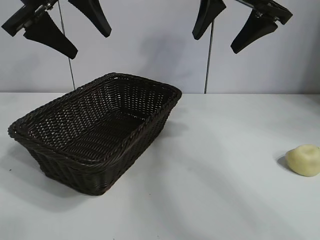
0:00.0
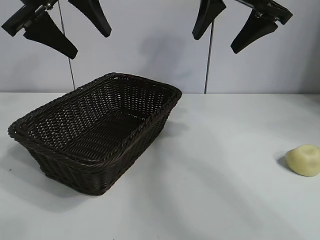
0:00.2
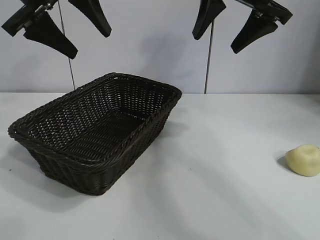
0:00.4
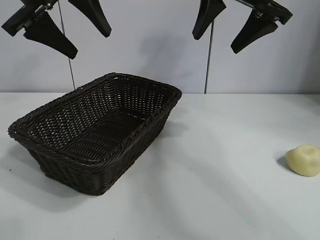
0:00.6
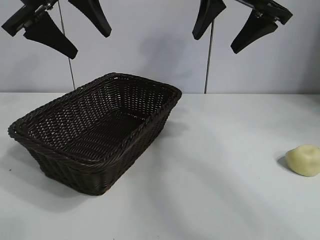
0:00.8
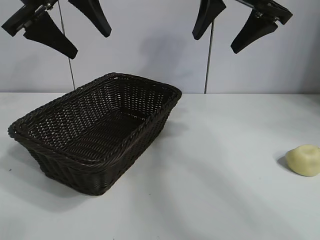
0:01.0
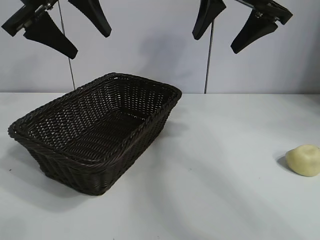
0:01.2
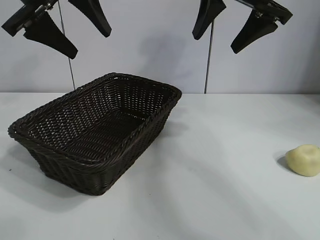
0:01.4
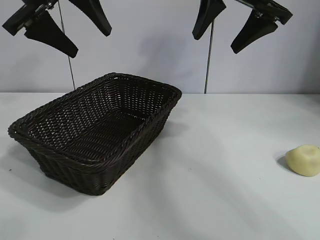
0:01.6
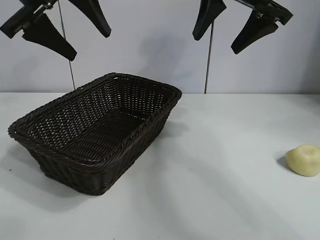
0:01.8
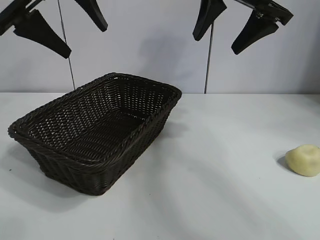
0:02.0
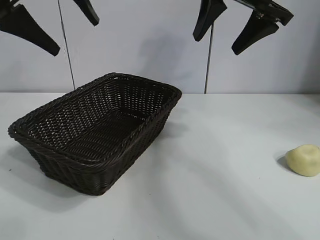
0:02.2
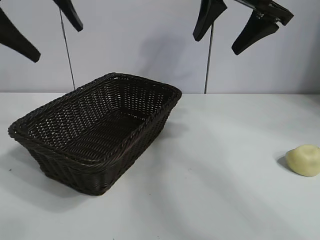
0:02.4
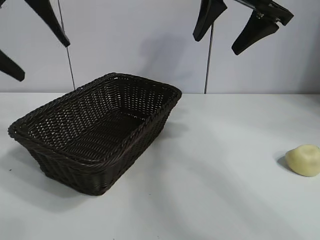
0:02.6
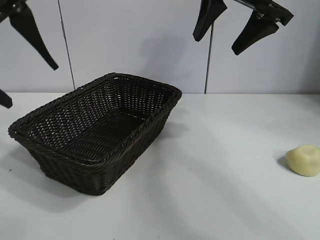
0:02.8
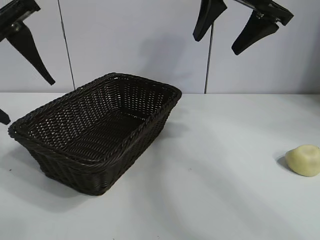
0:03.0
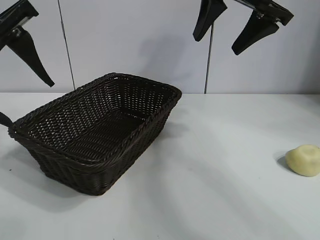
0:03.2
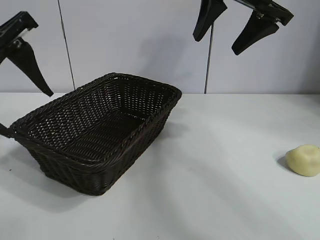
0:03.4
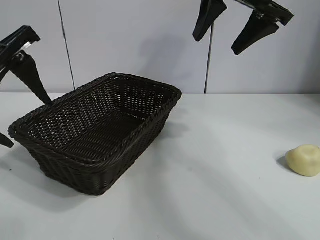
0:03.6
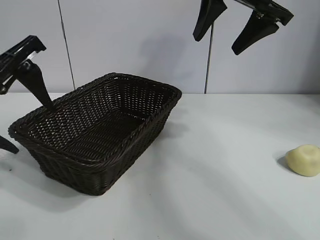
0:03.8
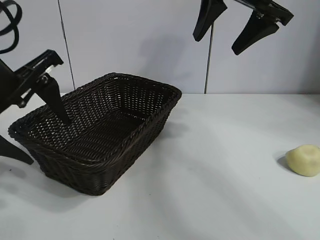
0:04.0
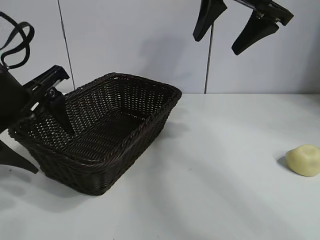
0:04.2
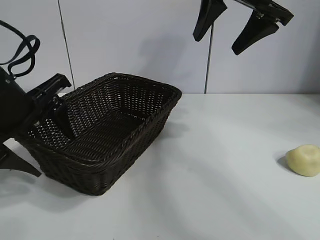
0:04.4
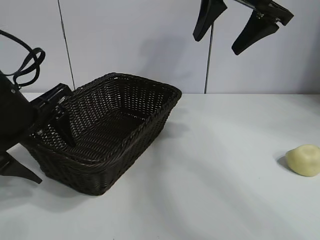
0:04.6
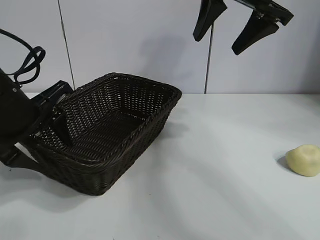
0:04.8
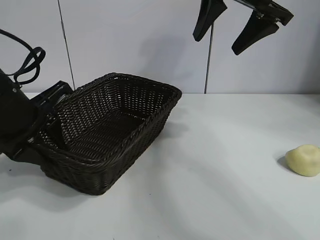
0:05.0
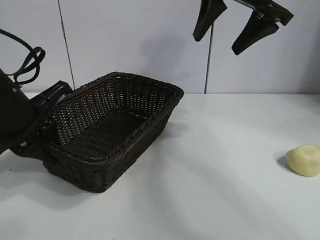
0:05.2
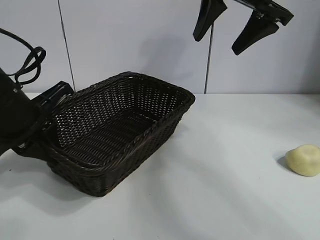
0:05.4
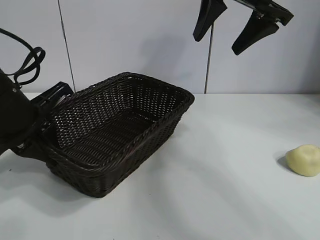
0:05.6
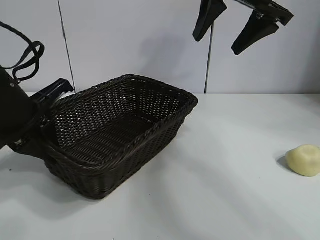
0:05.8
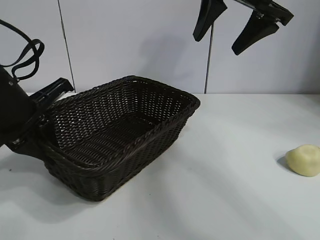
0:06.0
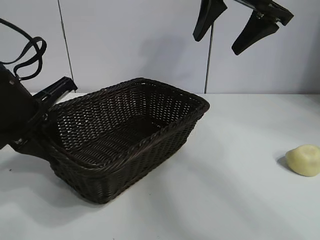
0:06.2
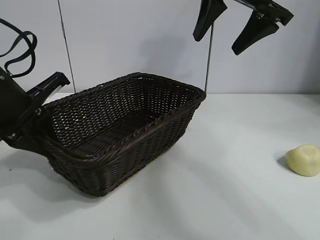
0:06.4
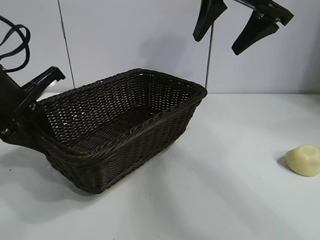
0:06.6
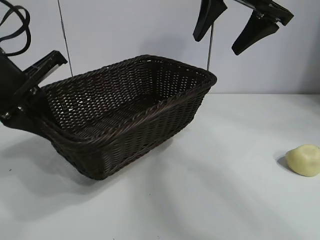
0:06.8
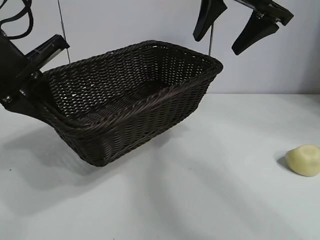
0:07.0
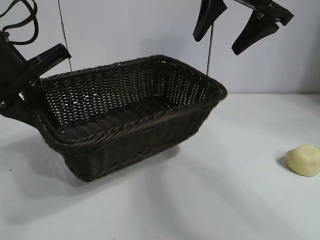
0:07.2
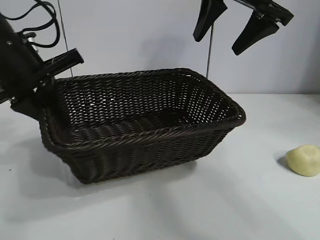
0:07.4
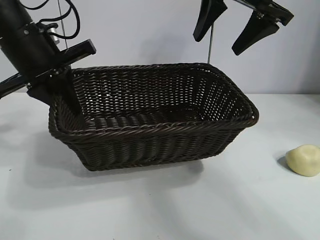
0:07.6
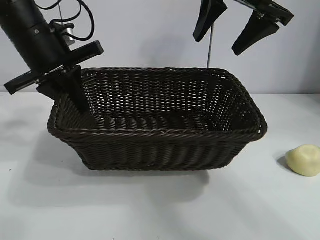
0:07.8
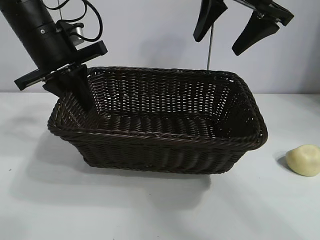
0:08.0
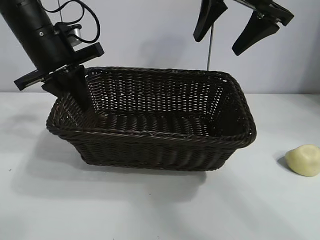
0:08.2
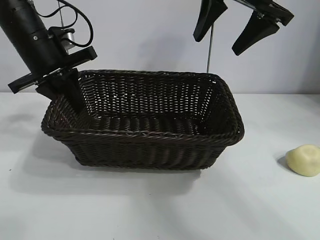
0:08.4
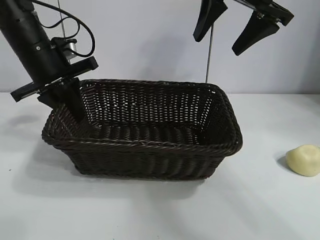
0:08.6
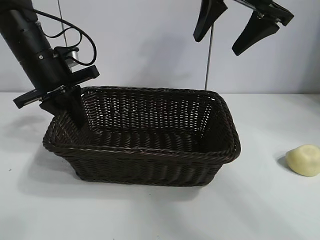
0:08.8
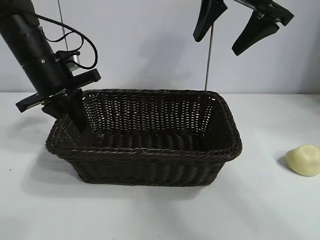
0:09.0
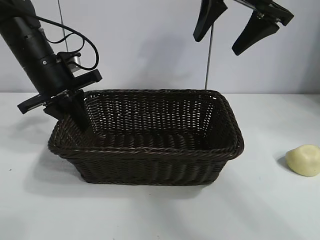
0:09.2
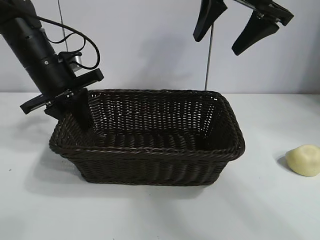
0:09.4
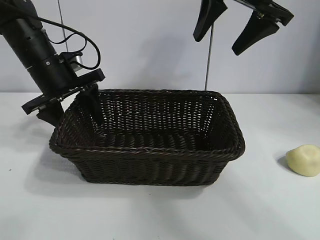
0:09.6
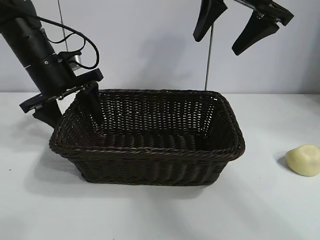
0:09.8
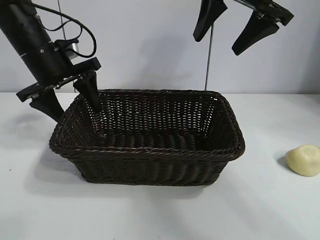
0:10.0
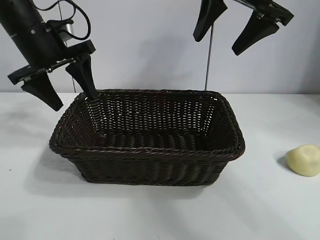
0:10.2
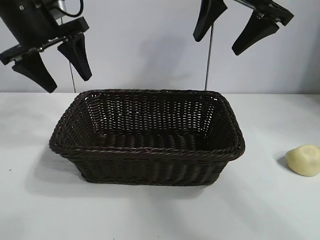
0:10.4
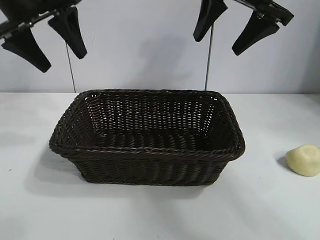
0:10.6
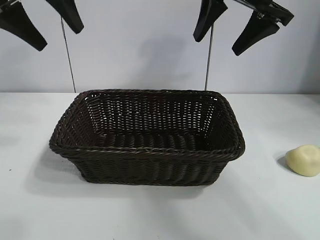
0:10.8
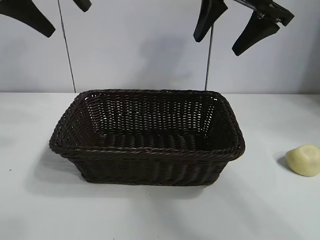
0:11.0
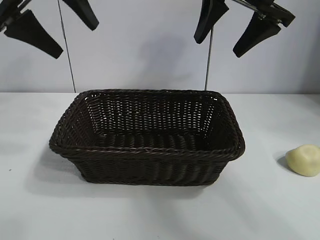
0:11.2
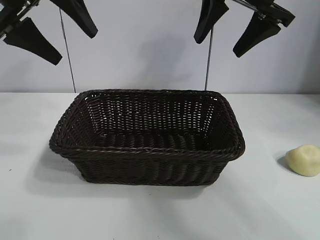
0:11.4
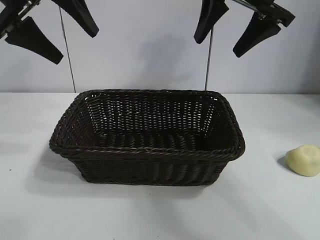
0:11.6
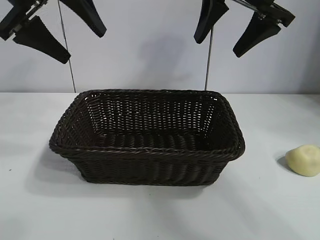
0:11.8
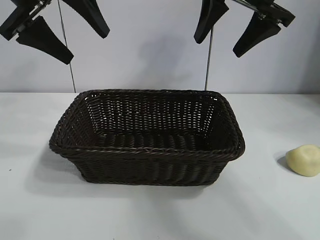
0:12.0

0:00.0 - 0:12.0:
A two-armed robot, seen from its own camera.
Task of the whole recording: pick up the egg yolk pastry and put it into the basket.
Step, 0:01.6 - 0:05.2: Grasp the basket with left gripper.
Step, 0:05.4 - 0:09.8: Place the basket in the center of view with left gripper.

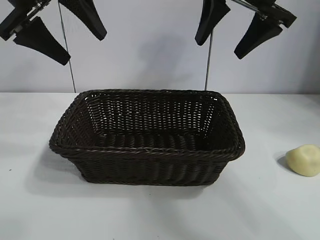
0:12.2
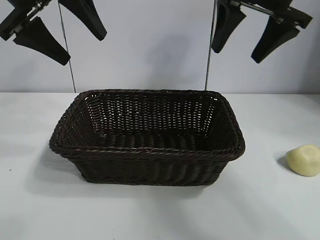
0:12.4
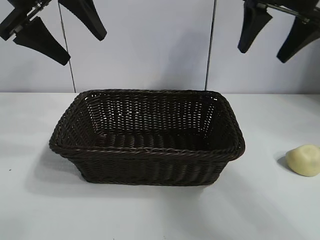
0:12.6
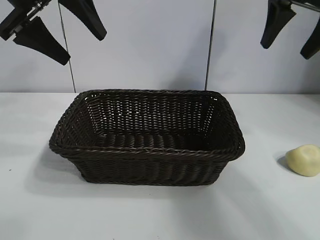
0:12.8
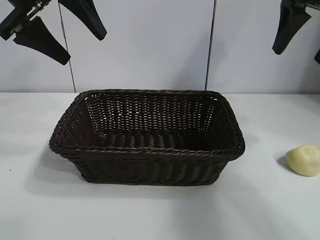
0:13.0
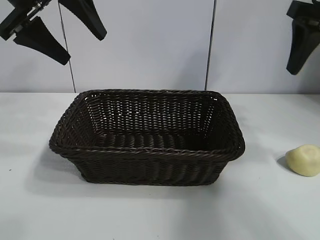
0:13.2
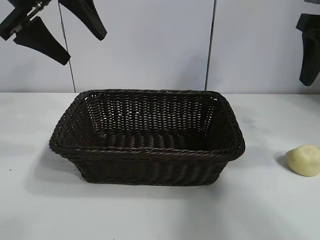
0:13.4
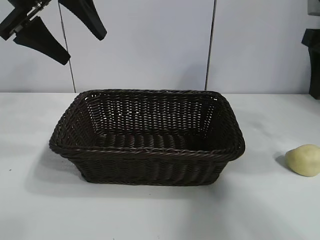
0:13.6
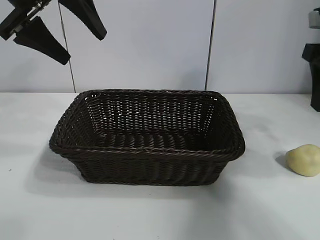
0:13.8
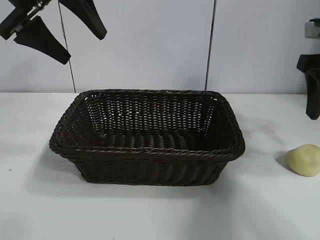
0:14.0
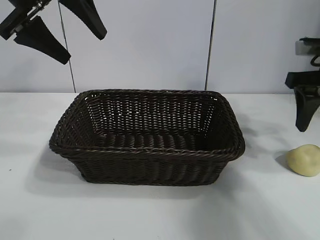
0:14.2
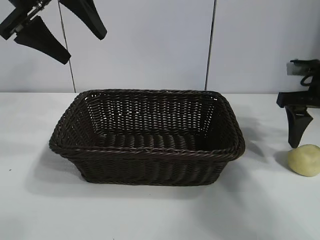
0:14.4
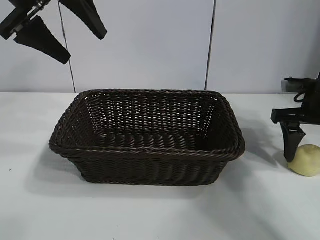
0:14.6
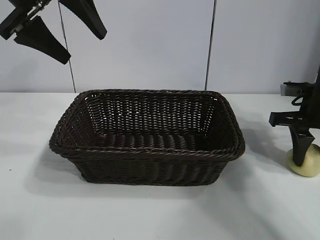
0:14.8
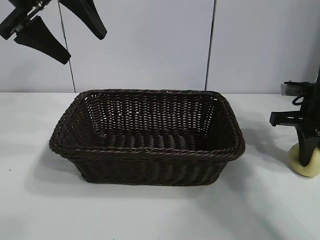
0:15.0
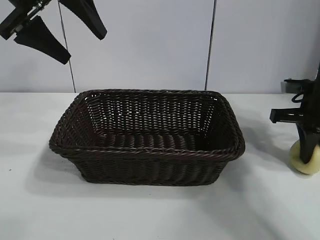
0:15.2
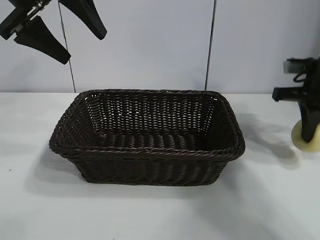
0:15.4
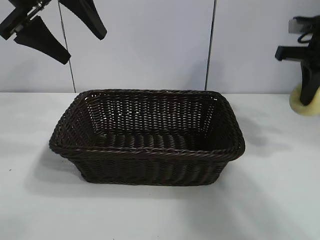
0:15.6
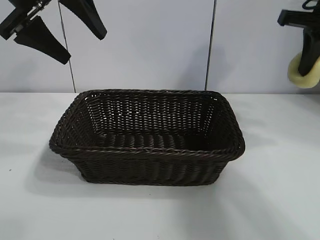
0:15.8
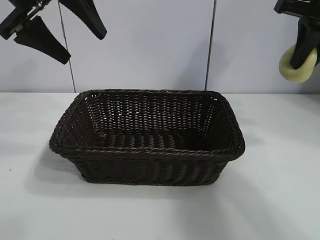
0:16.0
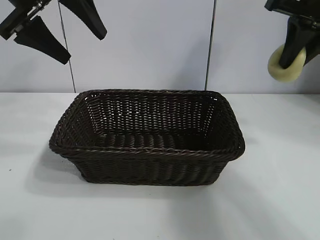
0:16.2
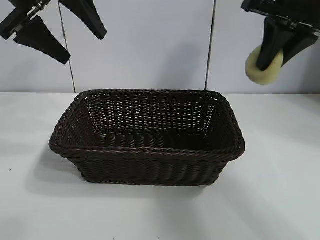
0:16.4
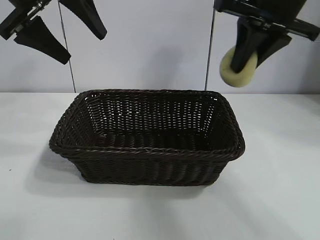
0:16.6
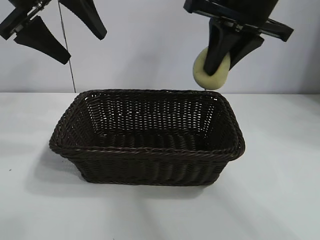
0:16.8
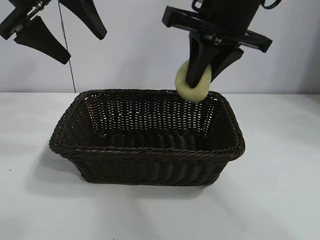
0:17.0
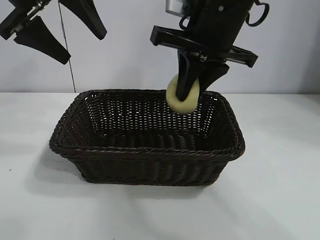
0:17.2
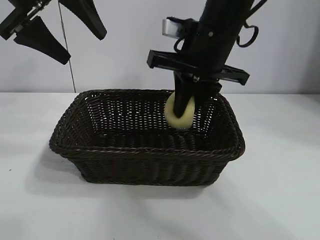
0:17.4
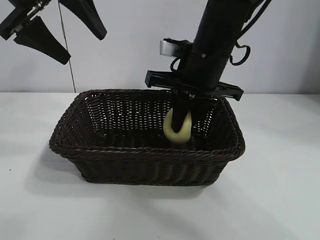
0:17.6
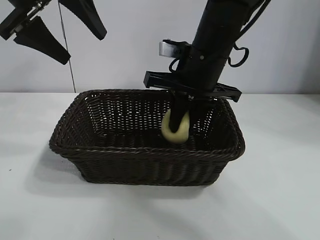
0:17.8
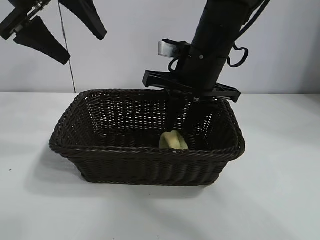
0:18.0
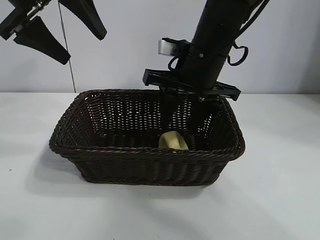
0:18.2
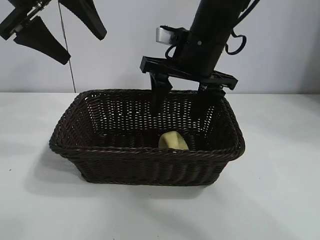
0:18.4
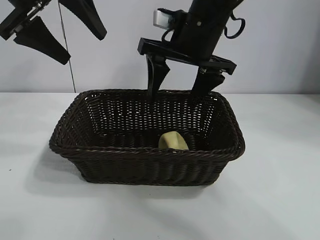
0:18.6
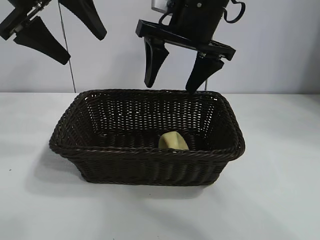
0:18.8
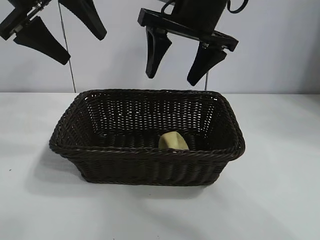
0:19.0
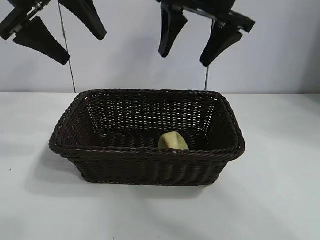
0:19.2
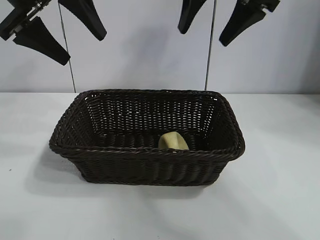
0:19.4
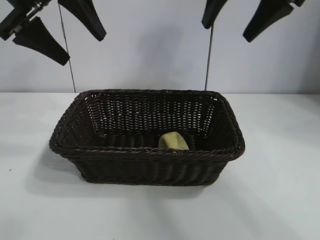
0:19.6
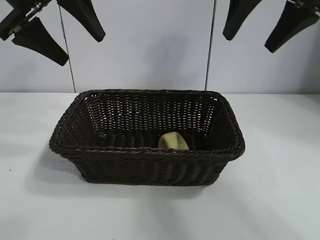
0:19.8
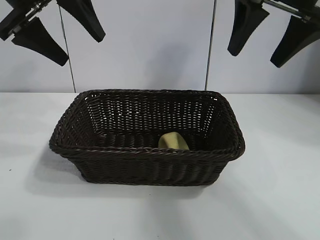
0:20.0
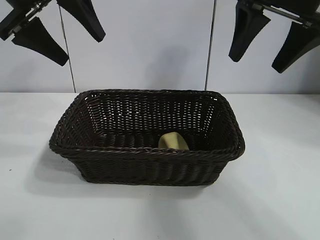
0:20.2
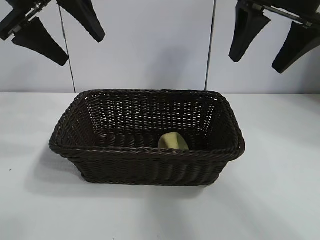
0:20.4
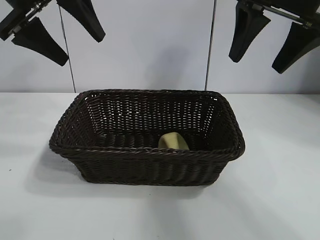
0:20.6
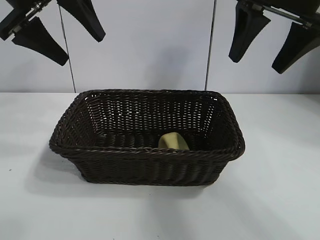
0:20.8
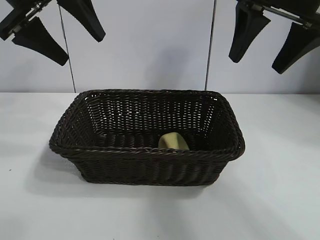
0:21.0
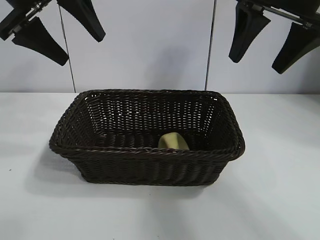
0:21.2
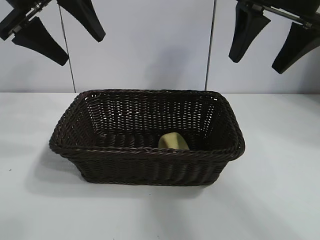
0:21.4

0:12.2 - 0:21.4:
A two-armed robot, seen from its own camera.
Task of the whole recording: pick up the egg yolk pastry and put it into the basket.
Step, 0:12.2 - 0:15.0: Grasp egg yolk pastry with right gripper.
Step, 0:15.4 - 0:18.2: Place the egg yolk pastry in the basket with right gripper.

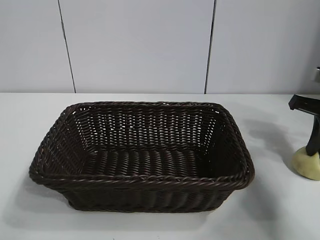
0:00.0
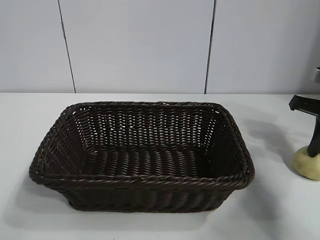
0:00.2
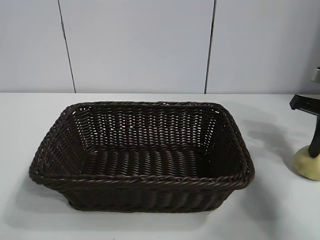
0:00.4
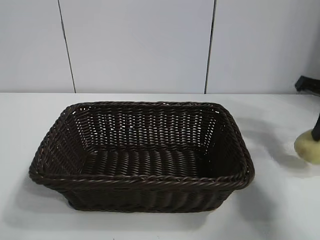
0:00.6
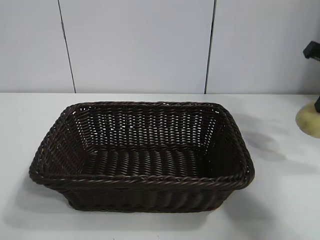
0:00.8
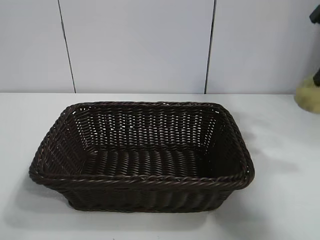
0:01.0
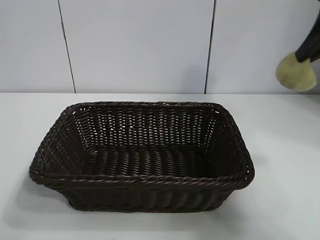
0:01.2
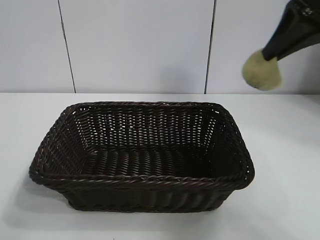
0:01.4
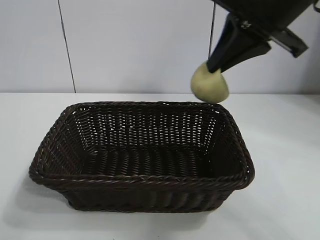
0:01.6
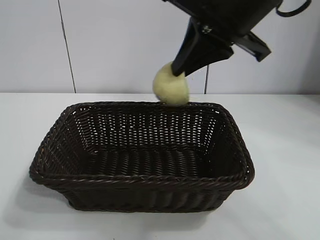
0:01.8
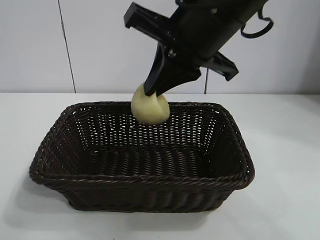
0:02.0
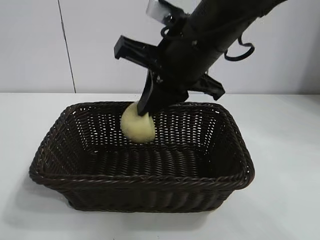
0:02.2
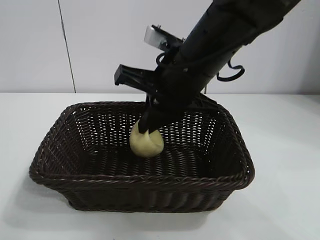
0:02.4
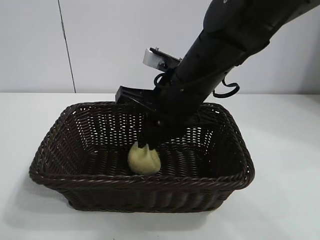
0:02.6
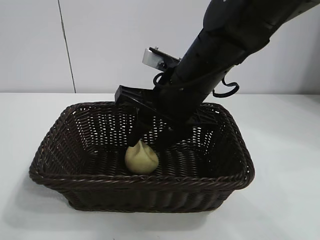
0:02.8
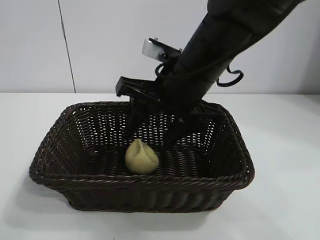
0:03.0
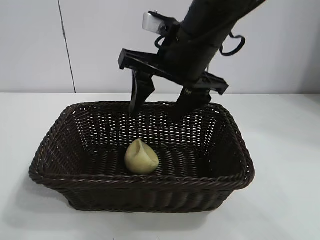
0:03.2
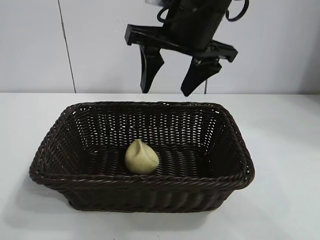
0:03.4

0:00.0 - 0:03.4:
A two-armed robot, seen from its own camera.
Task of the whole recording: pick up the egg yolk pastry and put it into the basket.
Step, 0:00.4 - 0:03.0: Place the egg yolk pastry in the basket with right gripper.
